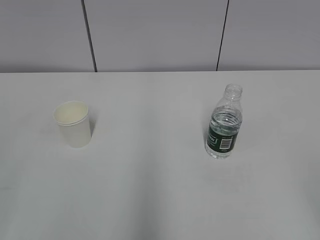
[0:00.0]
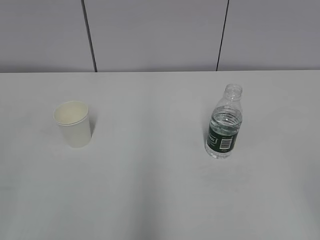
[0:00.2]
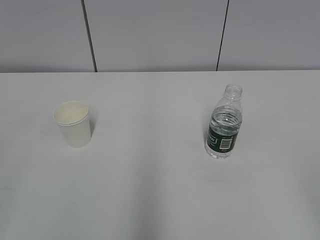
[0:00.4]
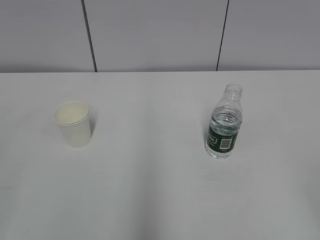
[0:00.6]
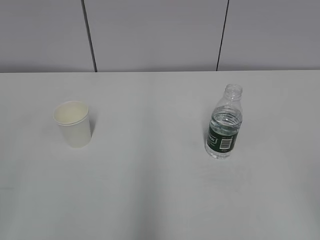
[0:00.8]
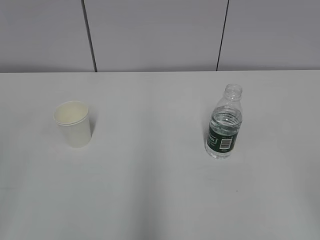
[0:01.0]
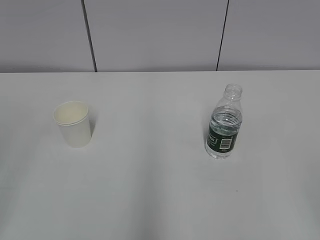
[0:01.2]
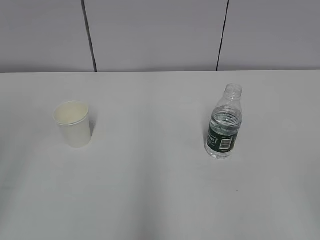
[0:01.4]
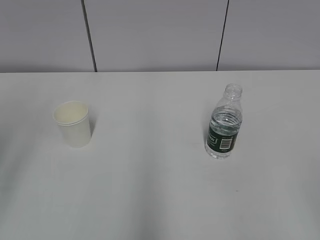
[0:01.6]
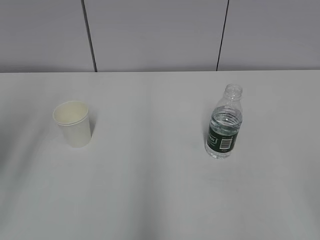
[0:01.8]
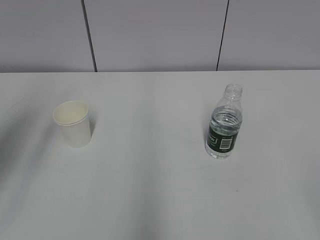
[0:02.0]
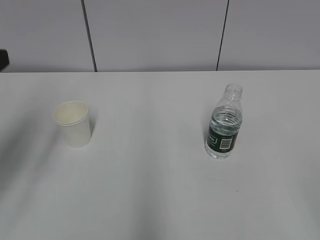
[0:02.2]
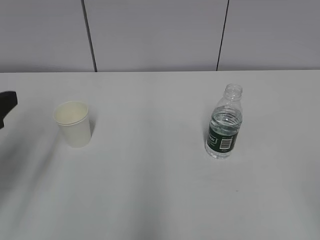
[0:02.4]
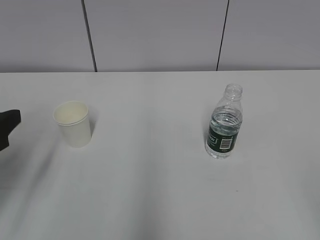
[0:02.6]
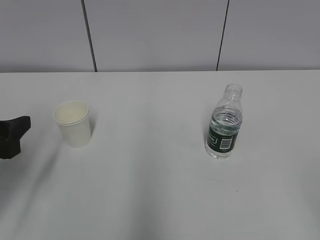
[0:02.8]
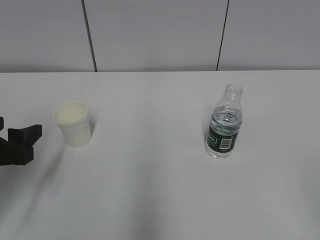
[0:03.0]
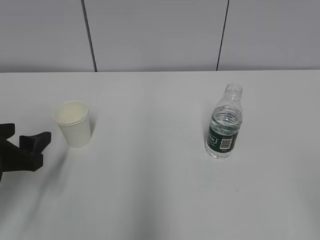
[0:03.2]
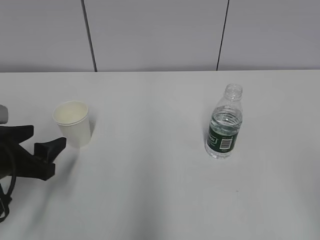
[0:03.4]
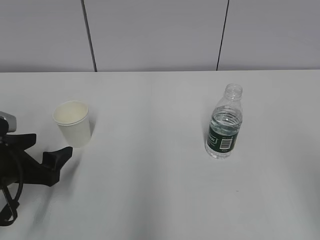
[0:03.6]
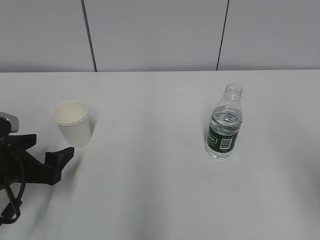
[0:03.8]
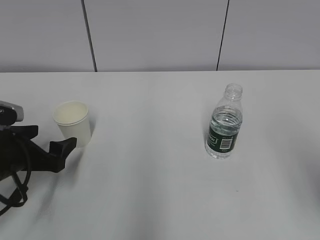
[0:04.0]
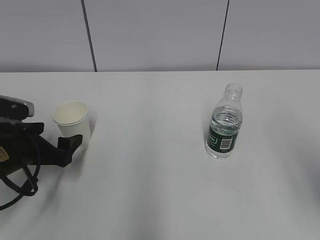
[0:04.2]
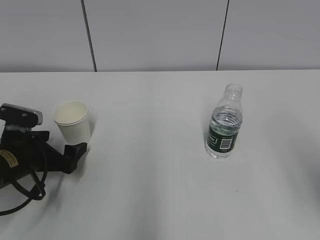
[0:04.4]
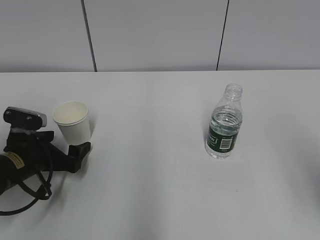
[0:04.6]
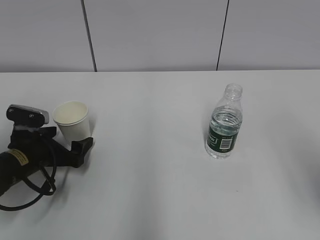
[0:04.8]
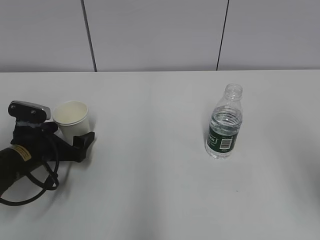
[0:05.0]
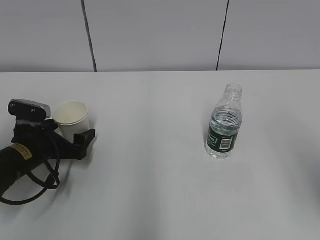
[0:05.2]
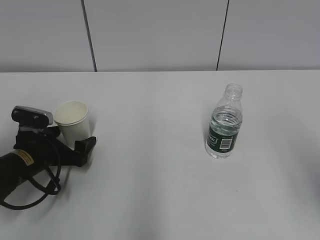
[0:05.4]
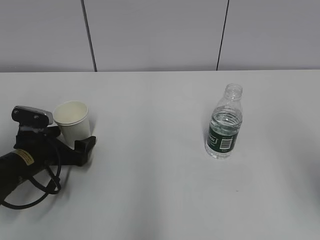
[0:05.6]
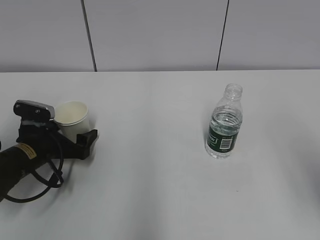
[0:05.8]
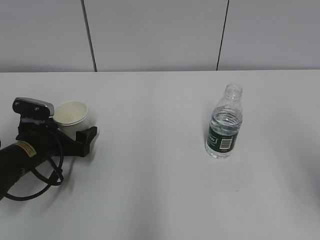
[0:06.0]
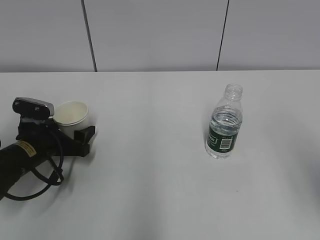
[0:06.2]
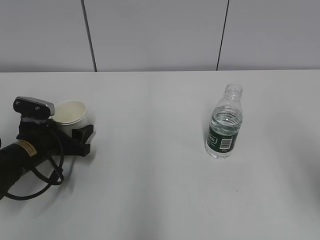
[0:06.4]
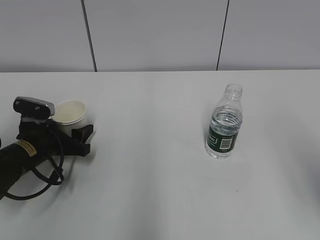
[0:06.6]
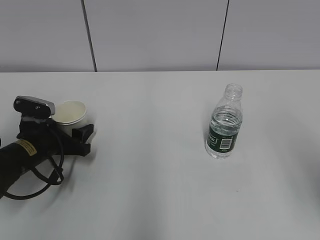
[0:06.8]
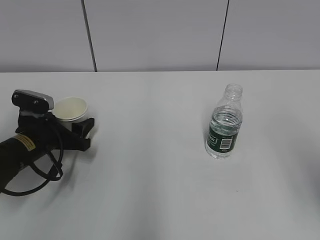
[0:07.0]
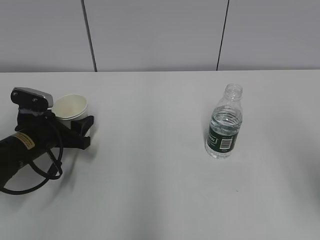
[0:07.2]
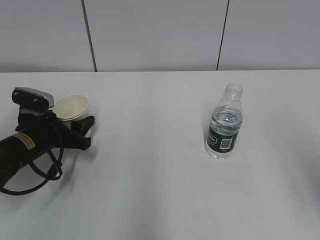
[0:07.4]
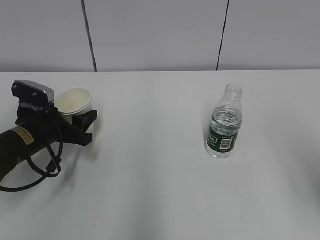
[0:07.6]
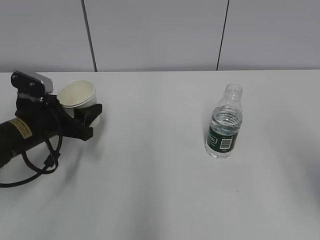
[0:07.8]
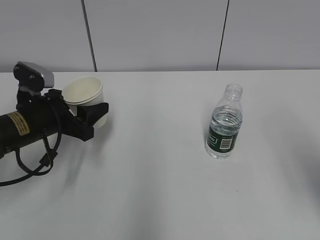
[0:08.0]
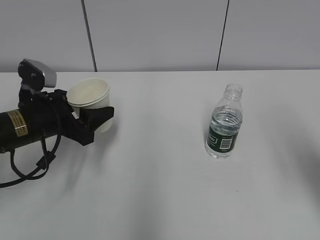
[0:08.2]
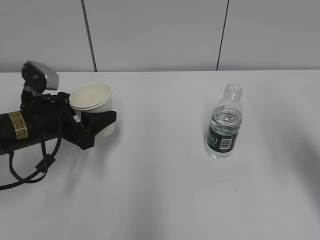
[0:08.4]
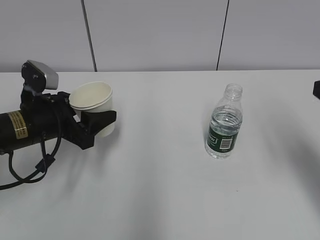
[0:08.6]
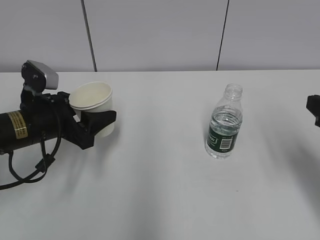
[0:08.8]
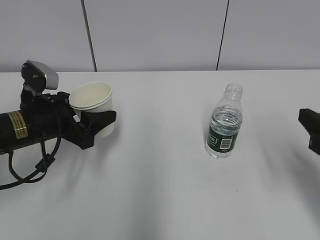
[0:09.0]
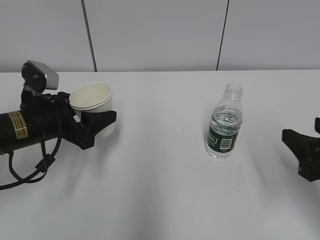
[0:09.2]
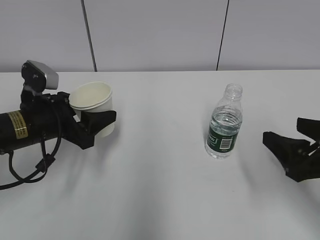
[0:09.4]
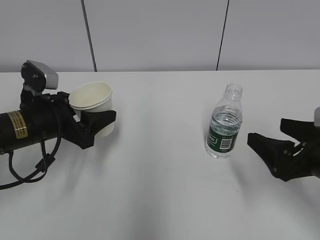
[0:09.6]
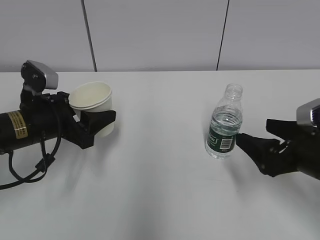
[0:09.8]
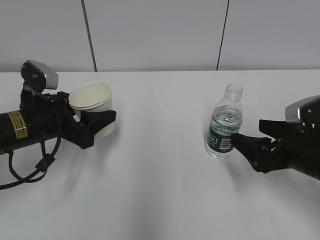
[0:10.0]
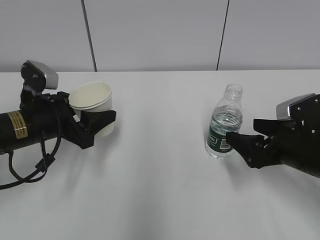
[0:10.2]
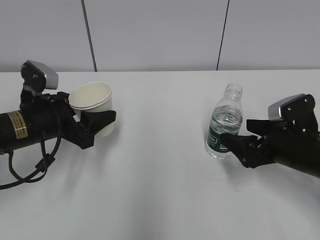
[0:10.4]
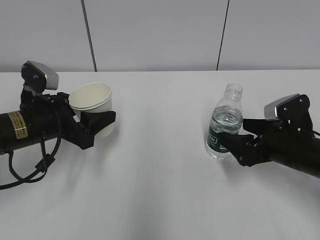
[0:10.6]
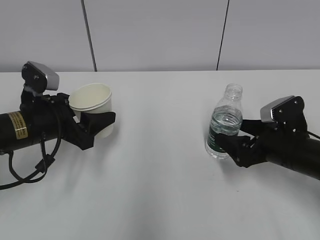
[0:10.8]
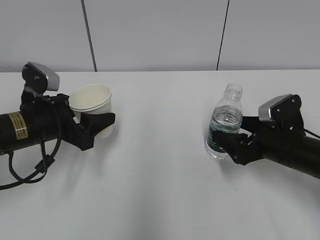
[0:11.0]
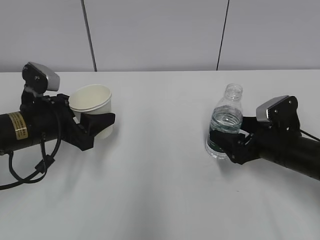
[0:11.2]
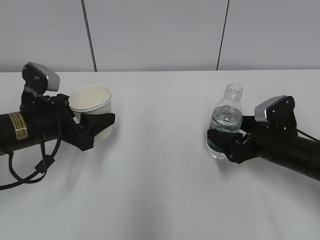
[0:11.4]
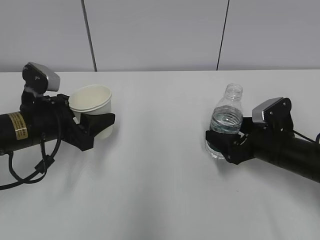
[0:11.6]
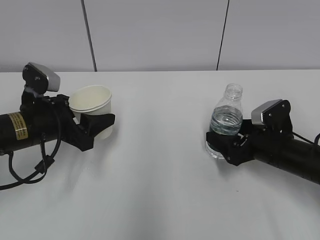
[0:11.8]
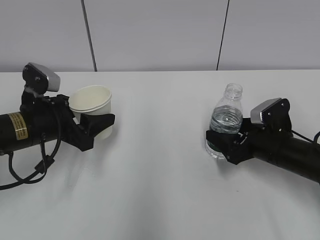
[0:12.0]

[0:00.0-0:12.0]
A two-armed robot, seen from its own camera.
Step, 0:00.0 to 0:05.6: Grab the paper cup with the left hand.
Step, 0:05.8 to 0:10.6: Grab the water bottle with the right hand.
0:01.6 to 0:03.0: The left gripper heads downward and forward, covering about 20 cm.
0:03.0 to 0:04.4: The left gripper shifts about 10 cm downward and forward, and opens up.
0:04.4 to 0:06.0: The grippers make only small movements.
0:06.0 to 0:07.6: The left gripper closes its fingers.
0:07.6 to 0:09.0: The right gripper heads downward and forward, covering about 15 cm, and closes its fingers, while the left gripper moves upward, approximately 5 cm.
0:09.0 to 0:10.4: The right gripper is displaced downward and forward by about 10 cm, and opens up.
0:10.4 to 0:12.0: The right gripper changes place by approximately 5 cm, and closes up.

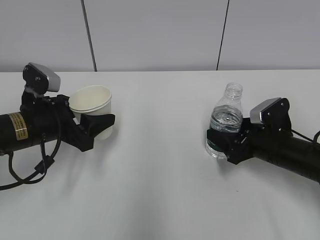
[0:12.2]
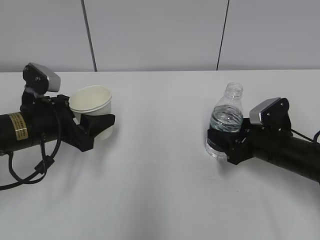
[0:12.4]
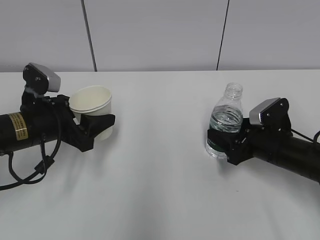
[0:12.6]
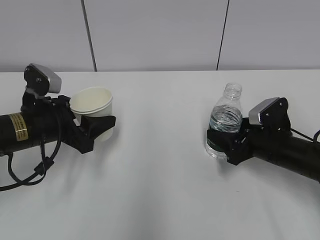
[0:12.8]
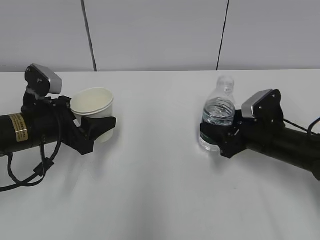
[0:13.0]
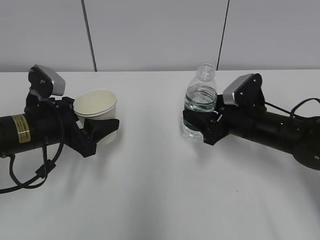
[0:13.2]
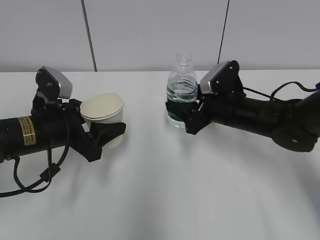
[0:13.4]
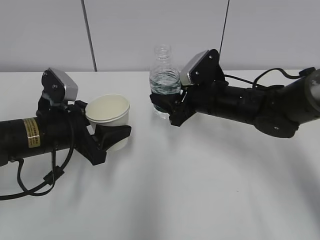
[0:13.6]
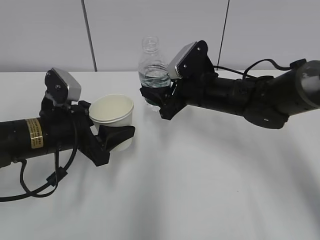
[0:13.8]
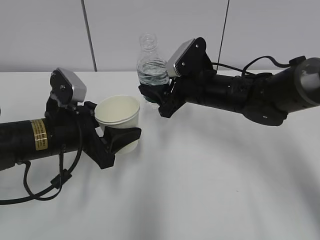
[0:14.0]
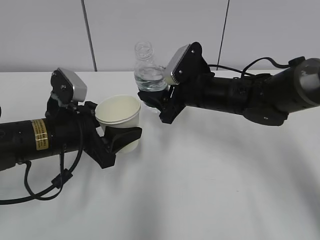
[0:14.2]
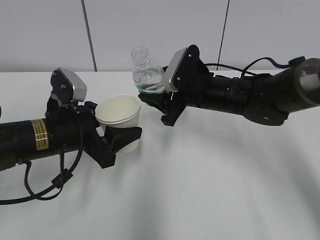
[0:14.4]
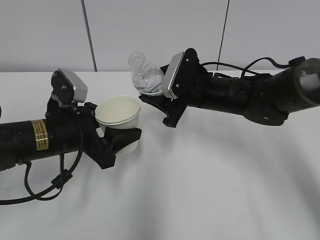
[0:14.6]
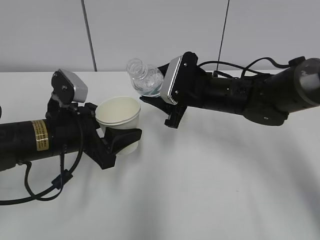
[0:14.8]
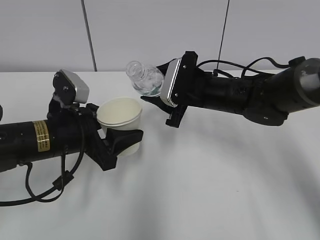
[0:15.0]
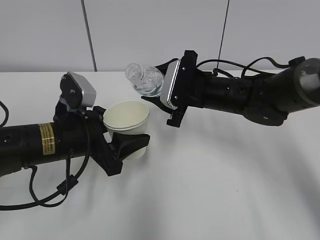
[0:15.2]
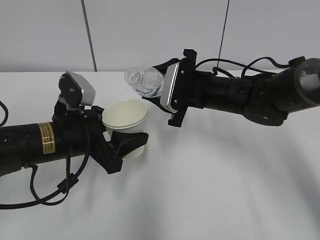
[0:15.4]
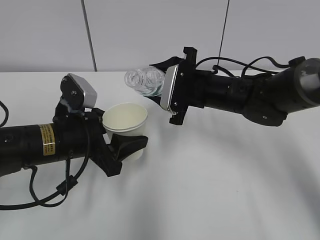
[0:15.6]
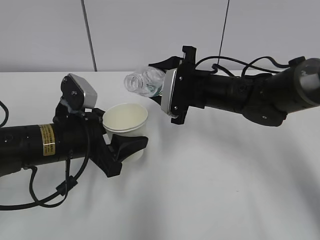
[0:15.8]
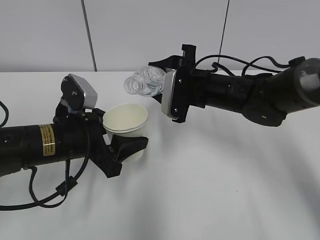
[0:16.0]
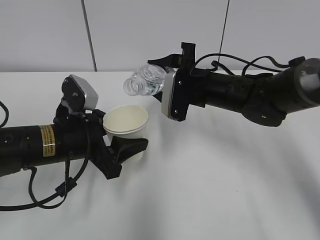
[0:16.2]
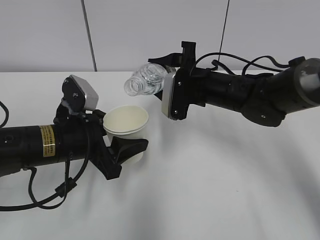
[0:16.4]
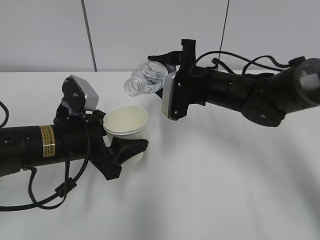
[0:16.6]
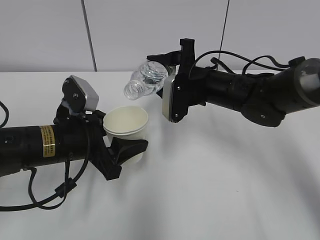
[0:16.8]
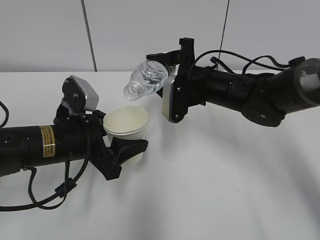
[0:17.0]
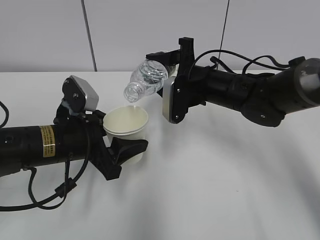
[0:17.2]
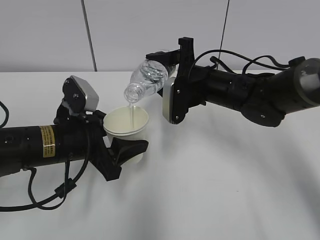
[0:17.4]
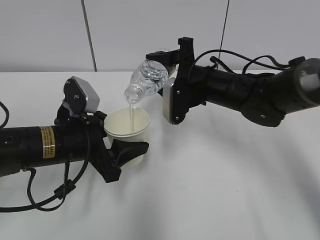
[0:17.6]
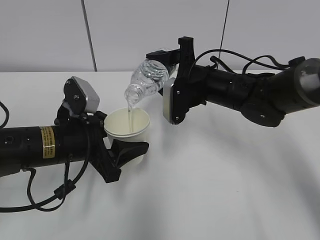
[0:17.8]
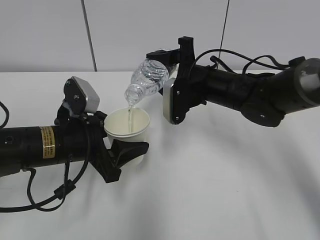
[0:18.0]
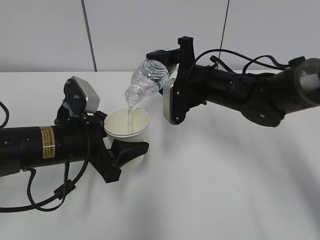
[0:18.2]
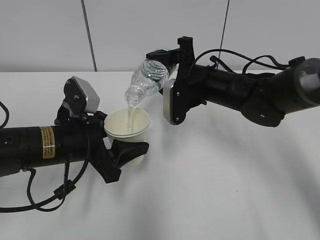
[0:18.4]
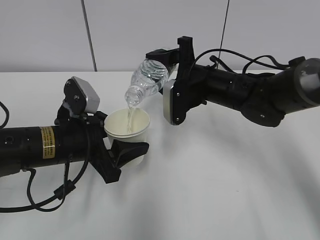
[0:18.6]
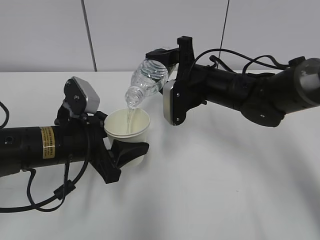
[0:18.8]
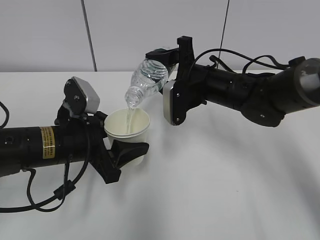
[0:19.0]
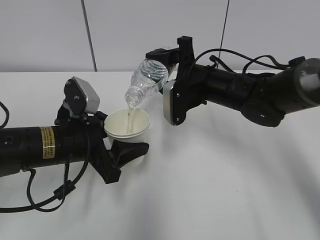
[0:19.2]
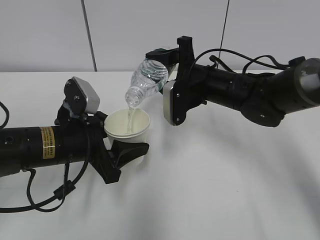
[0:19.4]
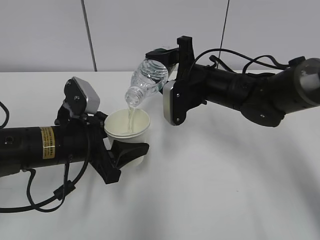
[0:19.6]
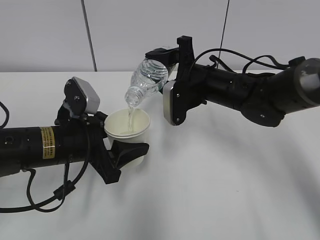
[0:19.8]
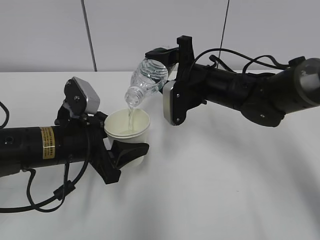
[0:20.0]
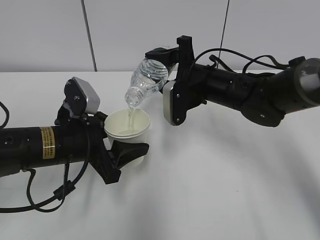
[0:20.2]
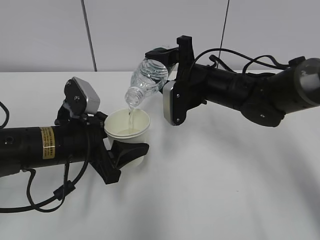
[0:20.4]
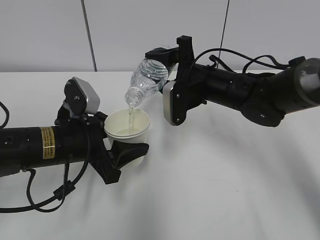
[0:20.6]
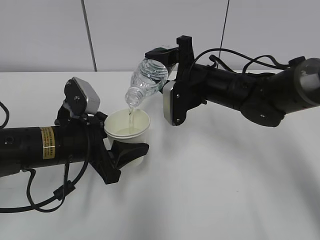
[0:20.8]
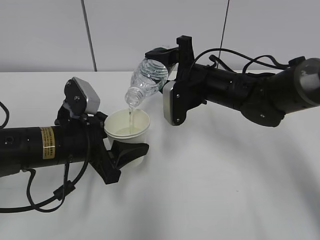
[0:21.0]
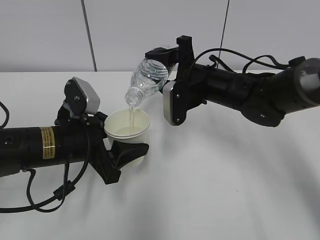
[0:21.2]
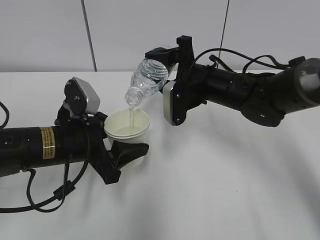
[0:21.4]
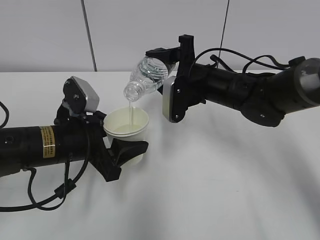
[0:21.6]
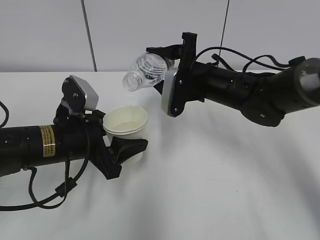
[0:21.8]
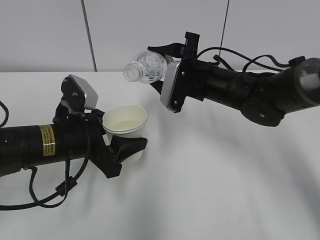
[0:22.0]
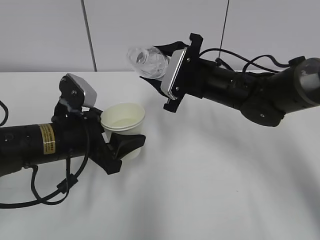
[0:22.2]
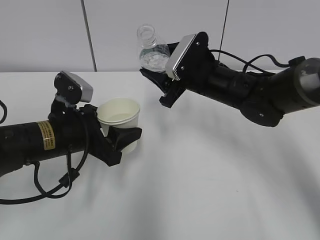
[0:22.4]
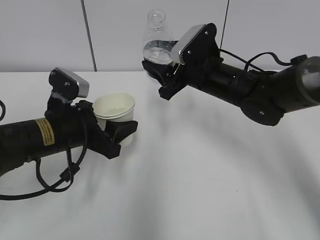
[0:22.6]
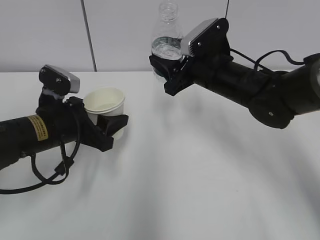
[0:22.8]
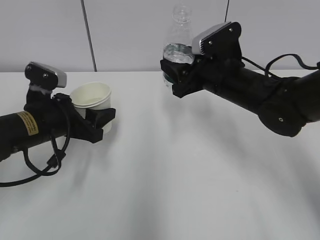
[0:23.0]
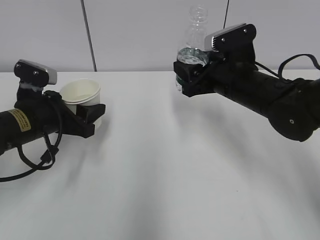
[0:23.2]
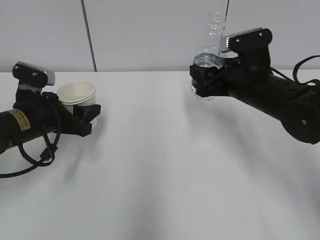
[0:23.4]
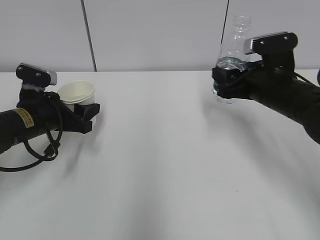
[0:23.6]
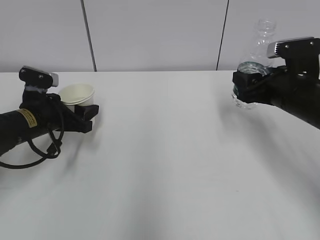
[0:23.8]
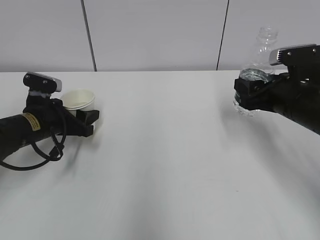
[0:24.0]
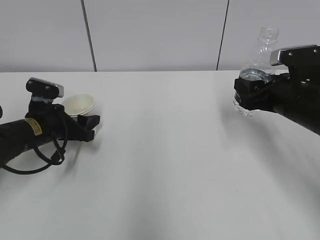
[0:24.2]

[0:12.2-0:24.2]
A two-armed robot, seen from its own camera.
Step, 0:12.2 to 0:14.2: Lift the paper cup with the left hand.
Step, 0:14.4 to 0:18.0: Fill water with the left hand.
Step, 0:14.4 to 0:18.0: Pour water with the right hand.
Step, 0:20.4 to 0:22.8: Place the water bottle with the right hand.
0:12.2 to 0:13.8: The right gripper heads to the left, upward and forward, covering roughly 15 cm.
0:16.6 to 0:18.2: The grippers move only a little.
0:18.2 to 0:21.2: The two grippers keep their place.
0:22.6 to 0:24.2: The left gripper goes some 10 cm to the left, forward and downward. The right gripper heads to the right and backward, covering some 15 cm.
